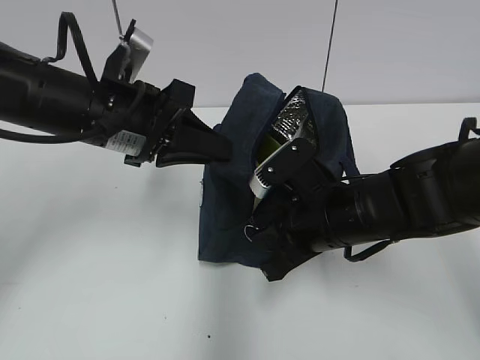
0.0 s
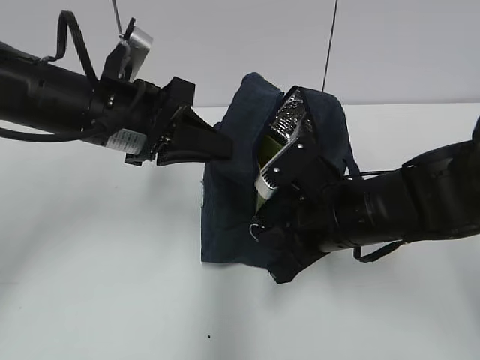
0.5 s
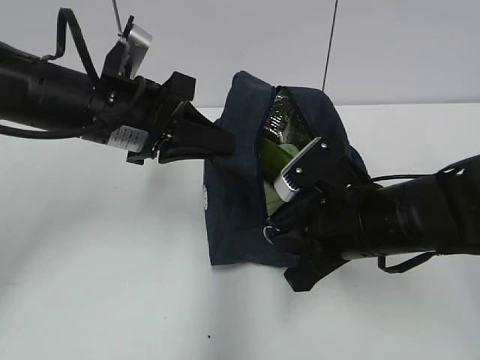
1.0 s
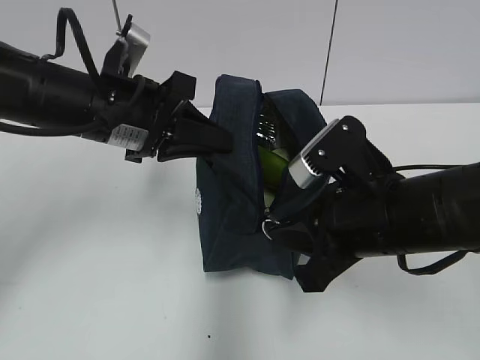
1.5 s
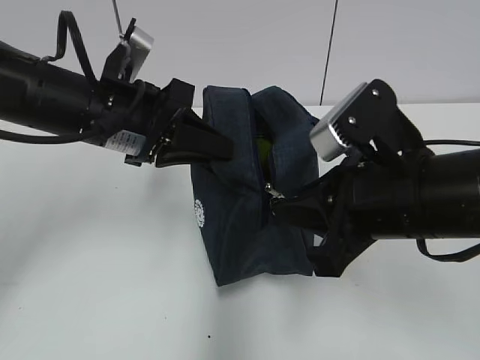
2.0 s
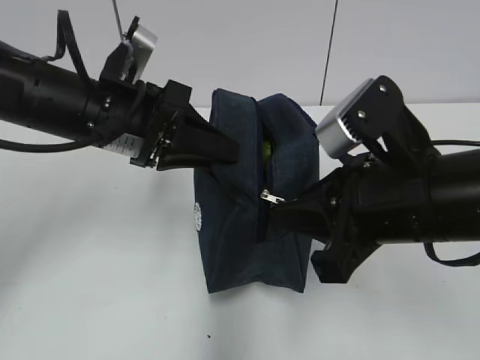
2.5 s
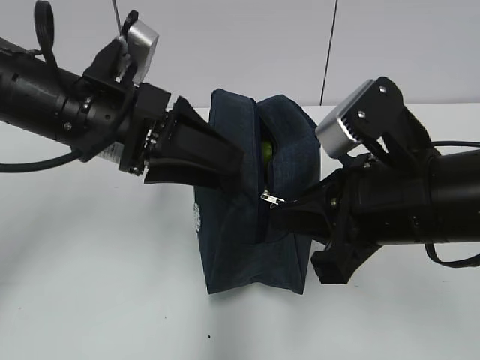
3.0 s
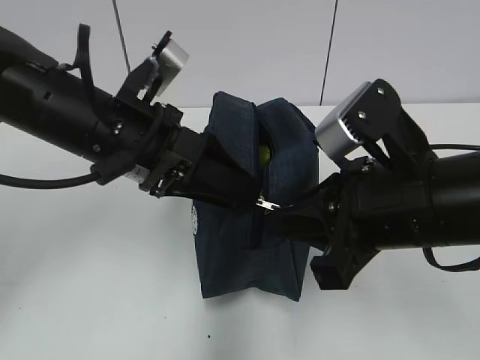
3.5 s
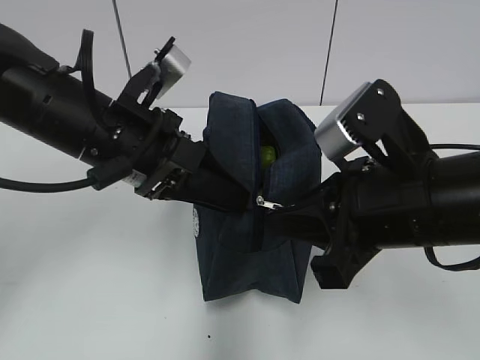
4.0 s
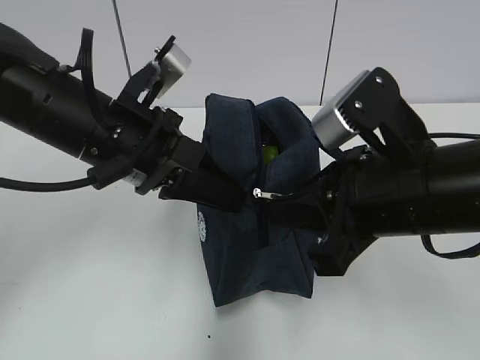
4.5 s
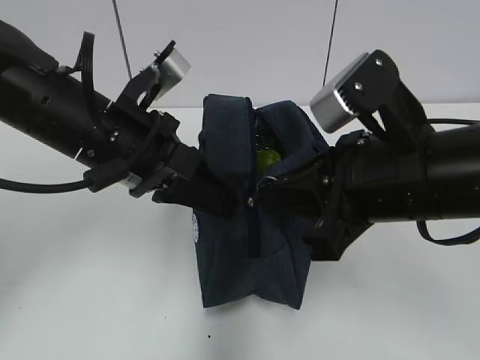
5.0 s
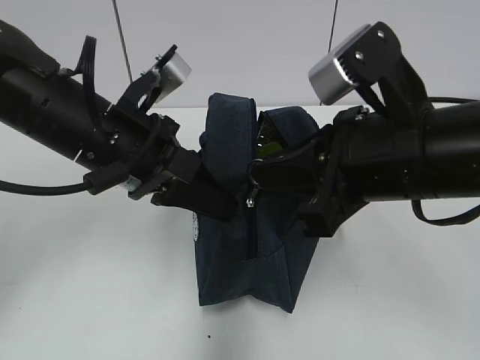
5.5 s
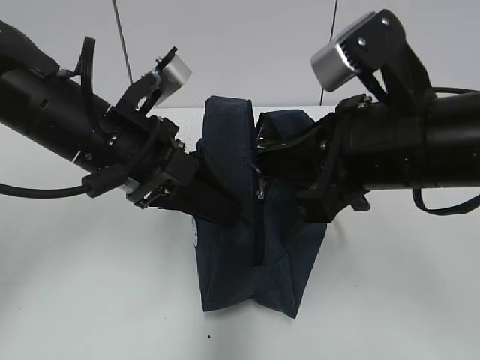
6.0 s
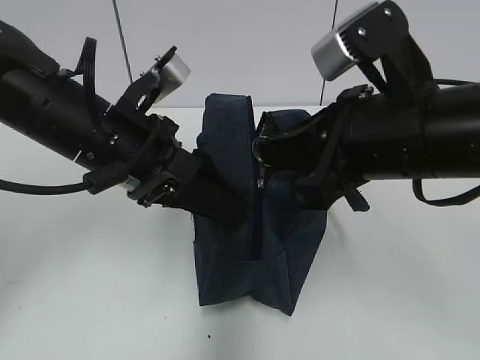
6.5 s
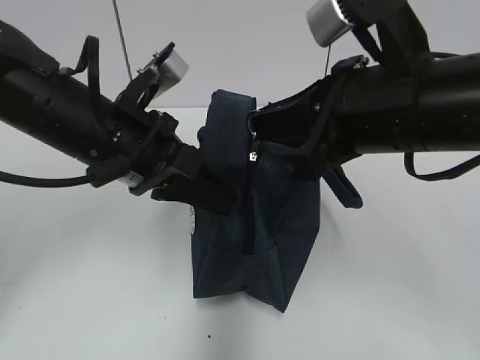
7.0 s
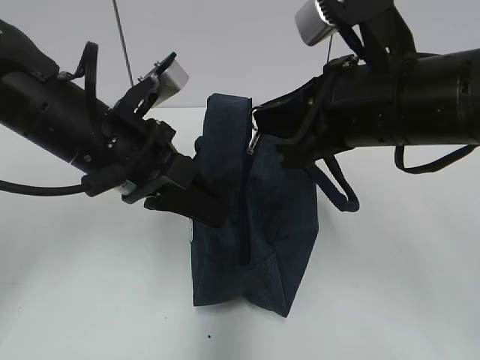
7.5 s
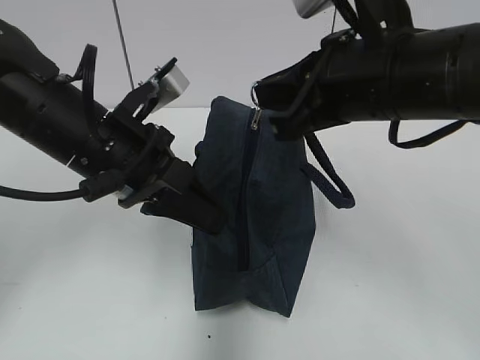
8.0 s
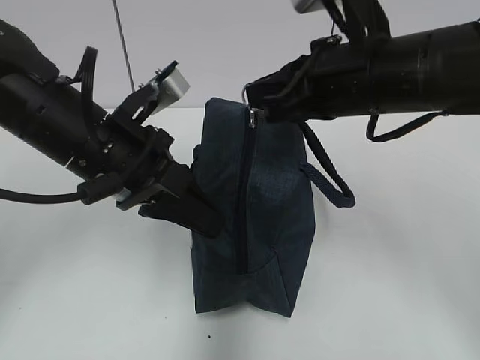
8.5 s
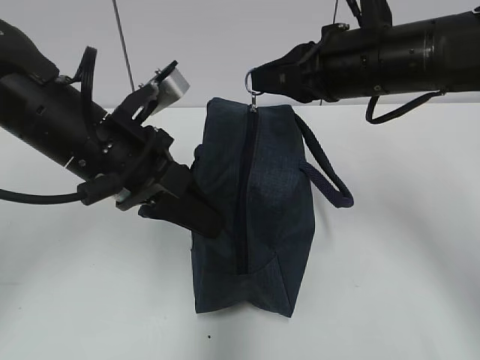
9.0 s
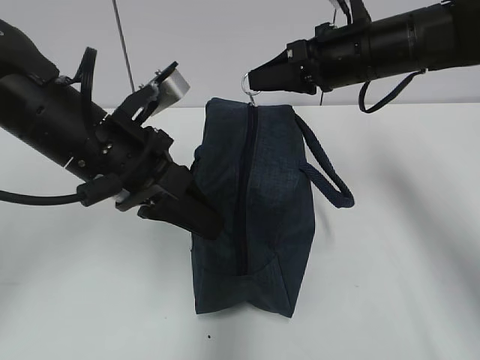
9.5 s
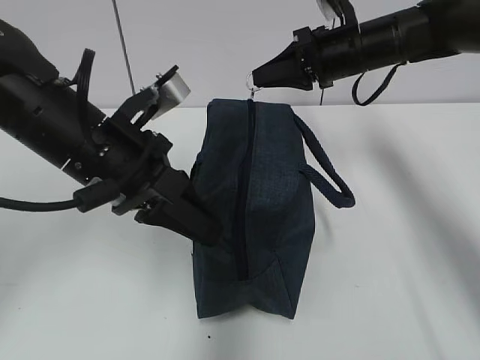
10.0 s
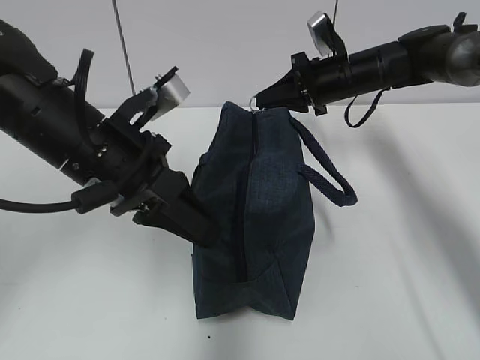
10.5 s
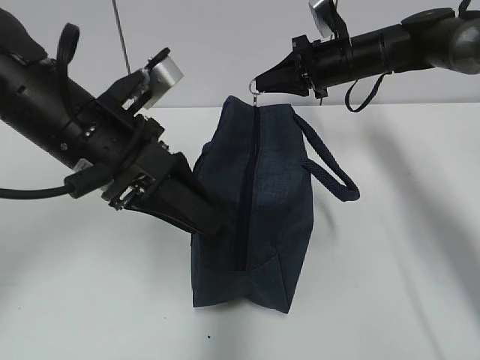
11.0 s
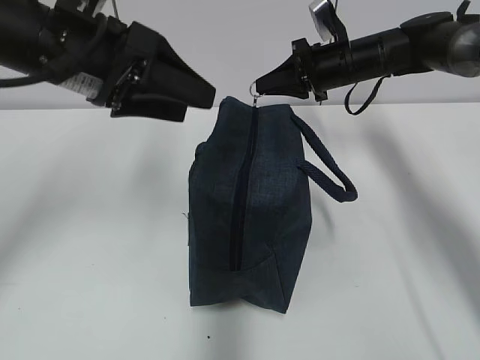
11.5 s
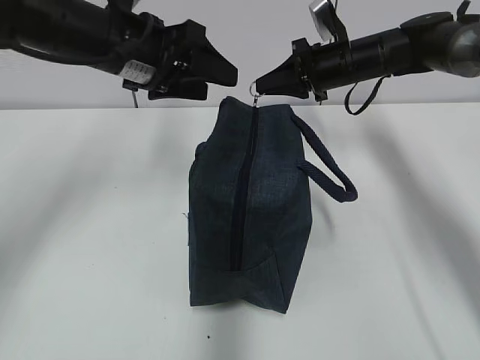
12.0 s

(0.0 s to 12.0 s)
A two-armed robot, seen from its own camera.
0.0 s - 2.0 s: The right gripper shifts roughly 10 cm upward and backward.
2.0 s - 4.0 s: The left gripper opens, then closes again.
4.0 s - 6.0 s: The left gripper closes, then opens again.
6.0 s - 8.0 s: The left gripper closes its fingers. The right gripper changes place by about 5 cm.
8.0 s - 10.0 s: The right gripper moves forward, approximately 20 cm.
10.0 s - 12.0 s: The right gripper moves roughly 5 cm, while the left gripper travels forward by approximately 10 cm, and opens up.

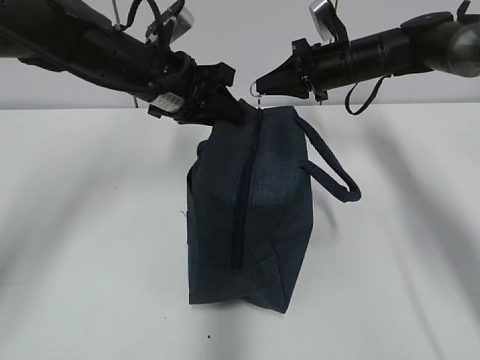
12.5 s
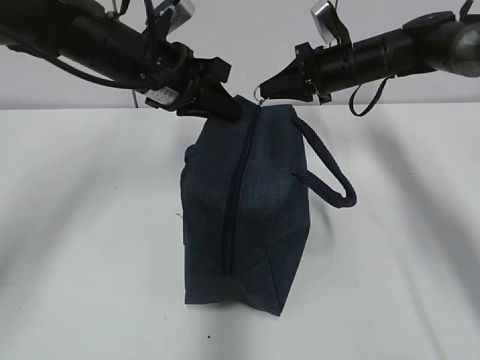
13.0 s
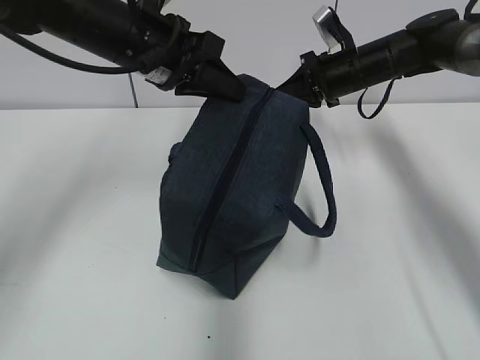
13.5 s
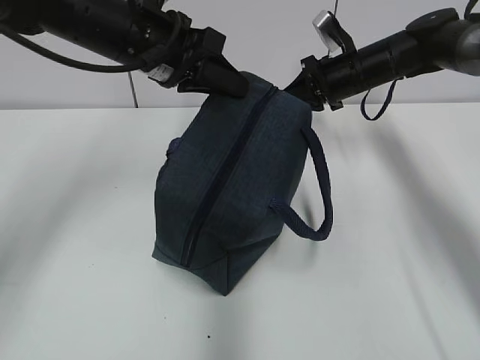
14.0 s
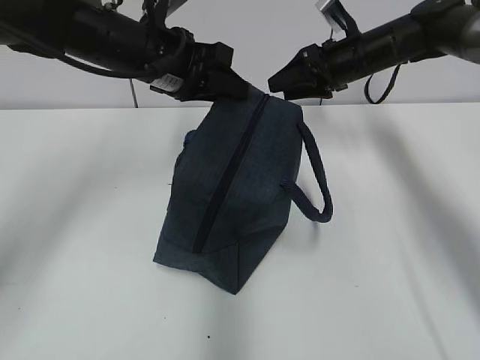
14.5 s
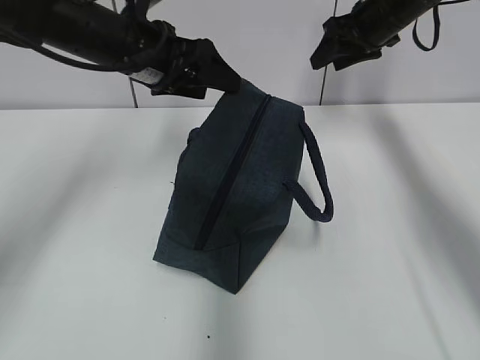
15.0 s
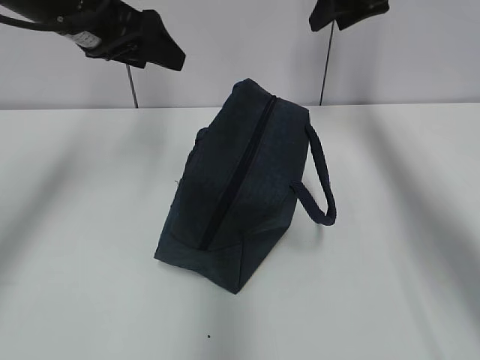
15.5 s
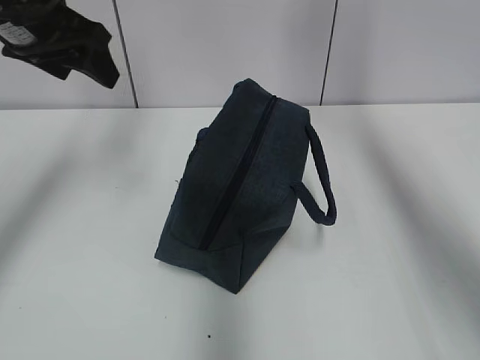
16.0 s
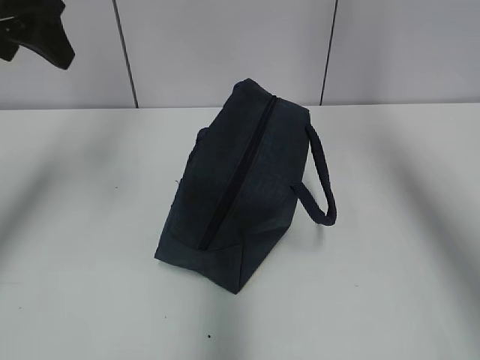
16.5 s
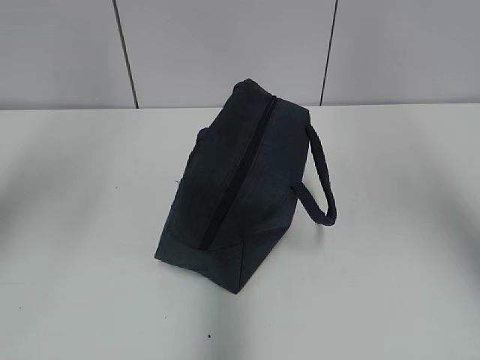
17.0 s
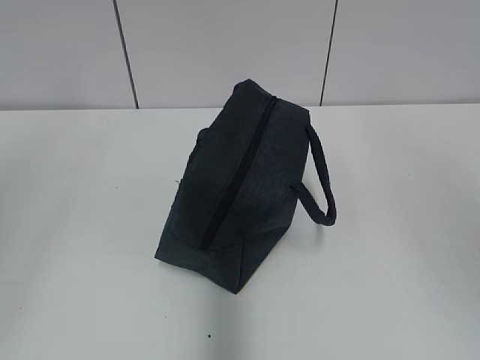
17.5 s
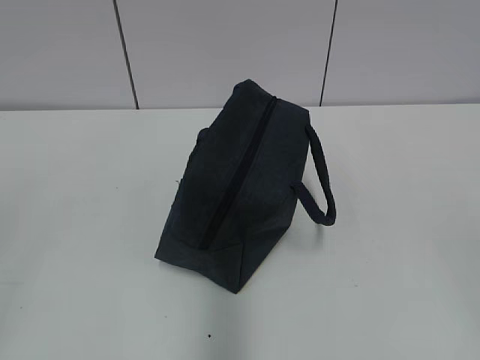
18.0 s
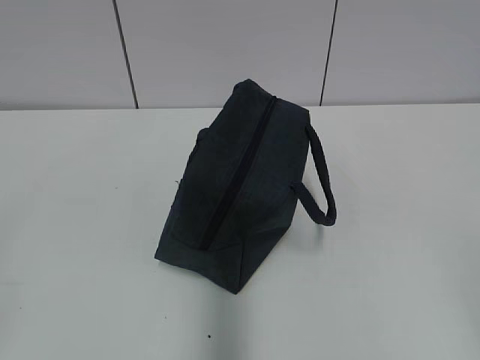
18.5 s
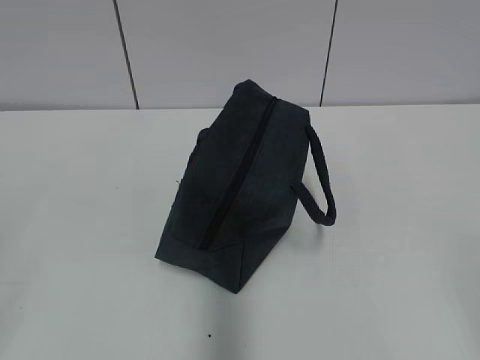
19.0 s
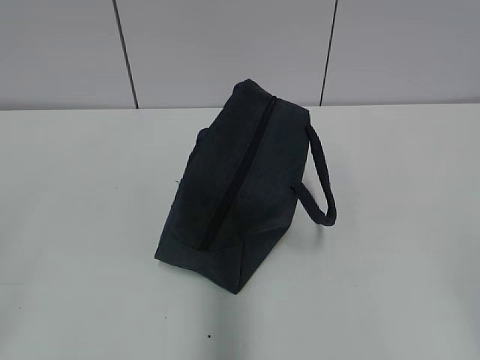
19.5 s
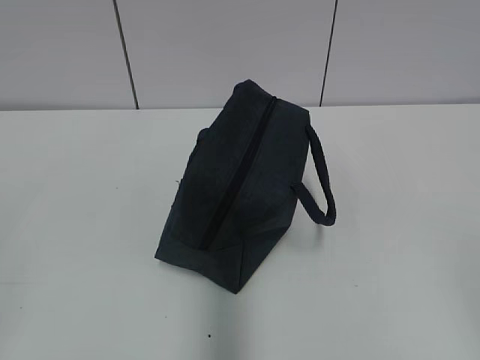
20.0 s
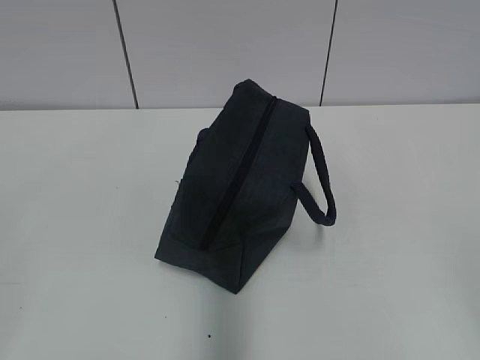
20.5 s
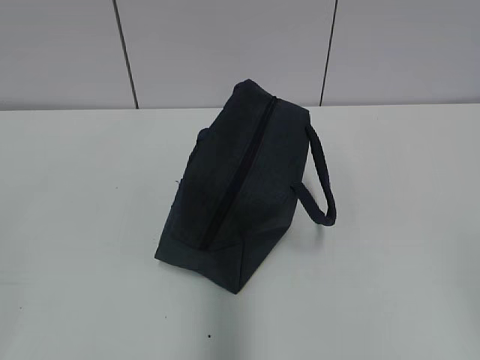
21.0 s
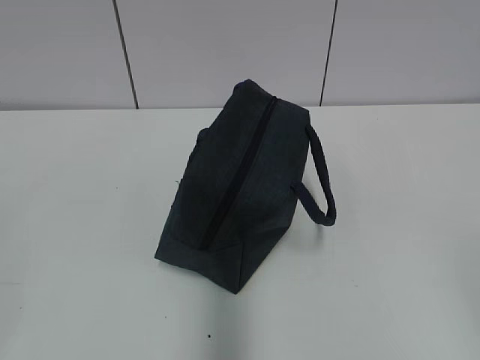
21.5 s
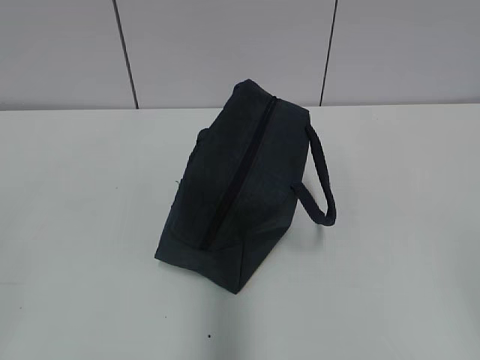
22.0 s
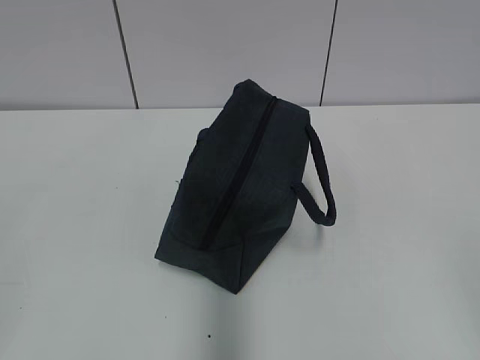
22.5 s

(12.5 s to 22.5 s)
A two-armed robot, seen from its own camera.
12.5 s - 14.5 s: The right gripper opens its fingers.
14.5 s - 16.5 s: The left gripper moves to the left, upward and backward, approximately 20 cm, and opens its fingers; the right gripper heads upward and backward, covering about 35 cm.
16.5 s - 18.5 s: The right gripper moves backward and downward, some 40 cm, while the left gripper heads backward, covering about 35 cm.
20.5 s - 22.5 s: Both grippers stay put.
